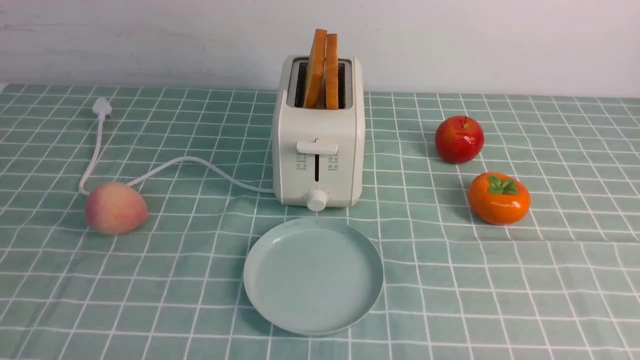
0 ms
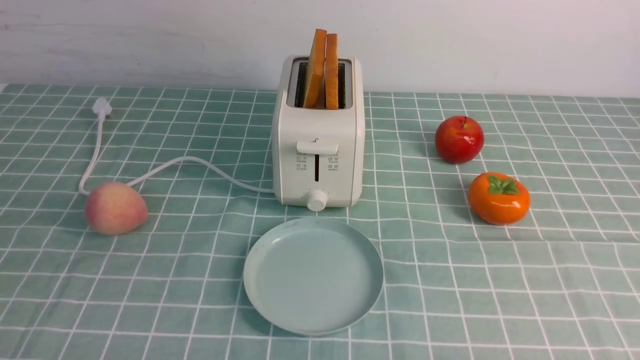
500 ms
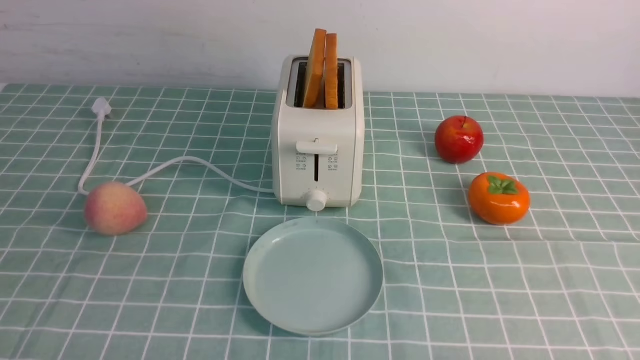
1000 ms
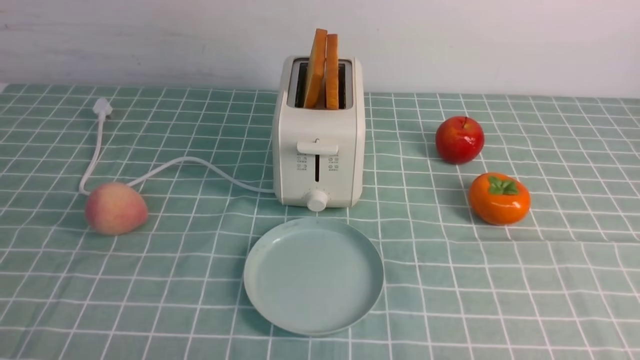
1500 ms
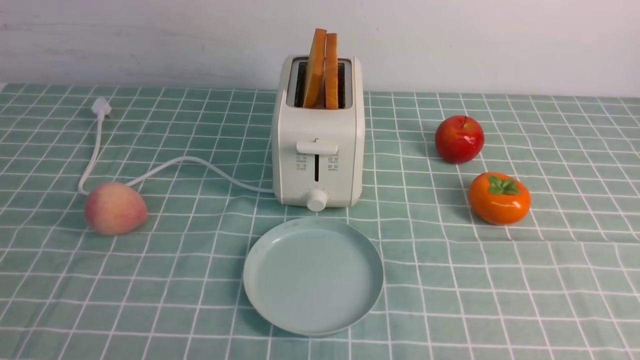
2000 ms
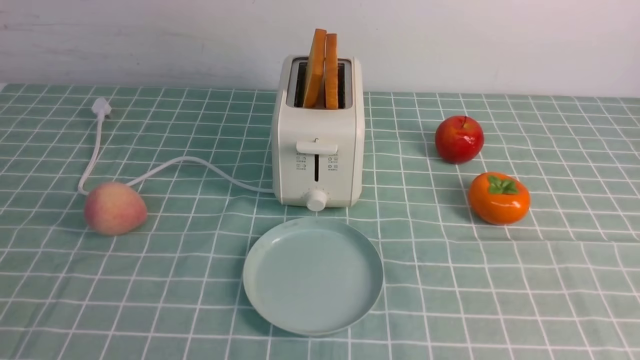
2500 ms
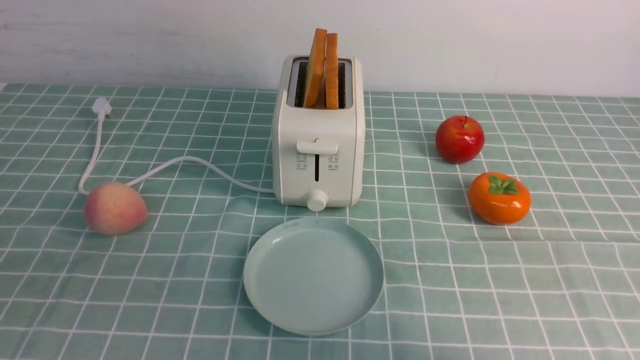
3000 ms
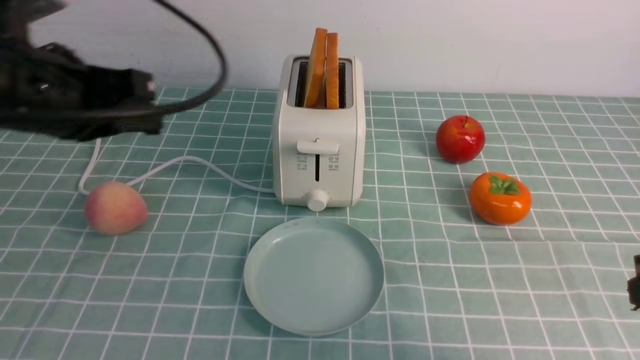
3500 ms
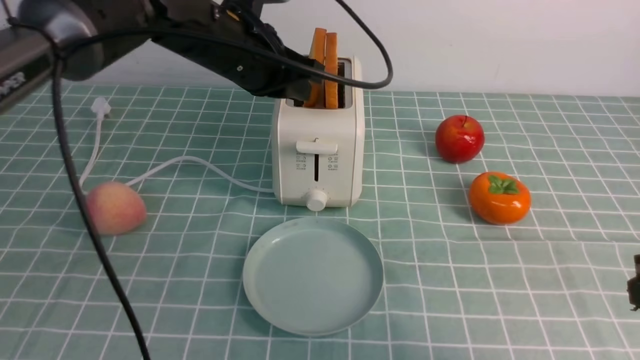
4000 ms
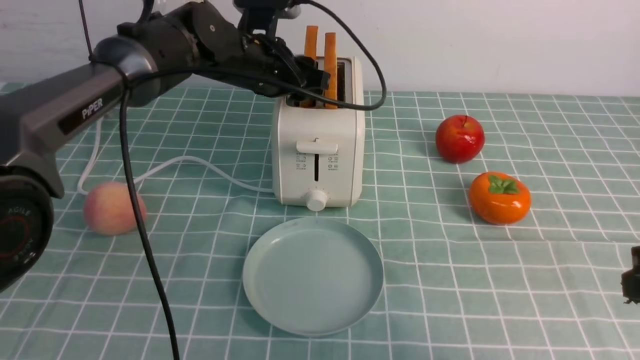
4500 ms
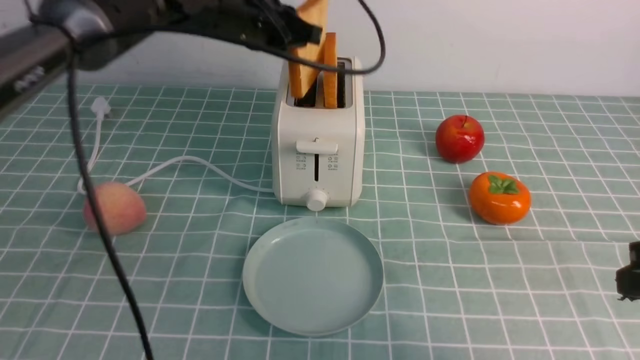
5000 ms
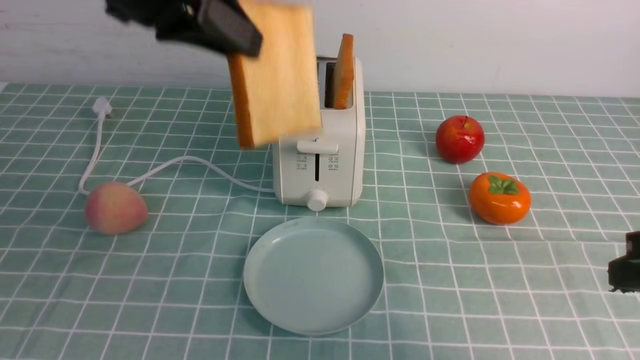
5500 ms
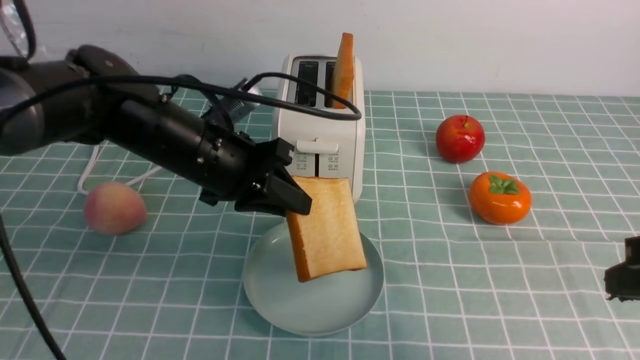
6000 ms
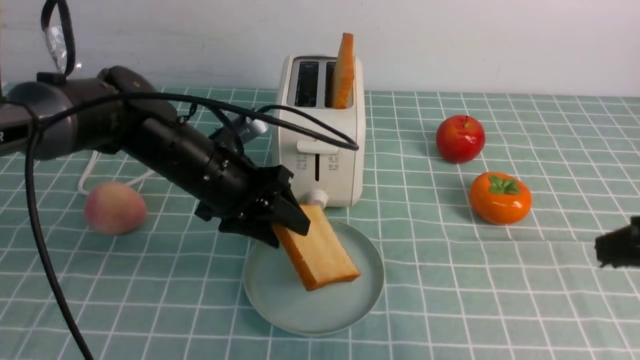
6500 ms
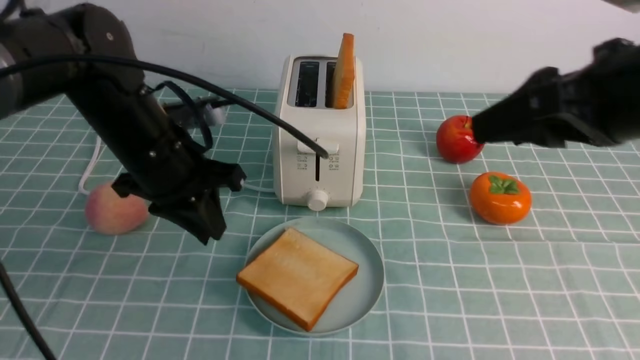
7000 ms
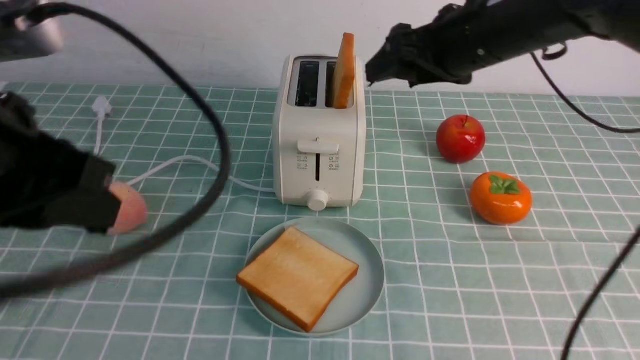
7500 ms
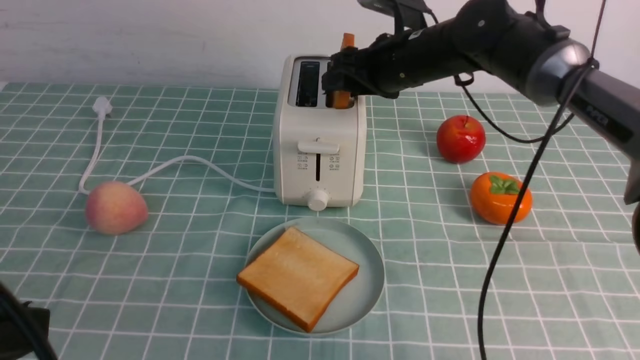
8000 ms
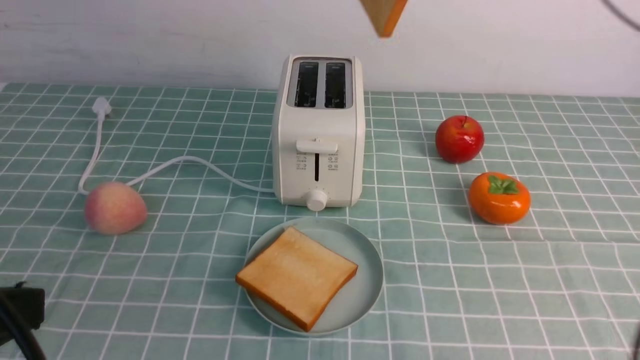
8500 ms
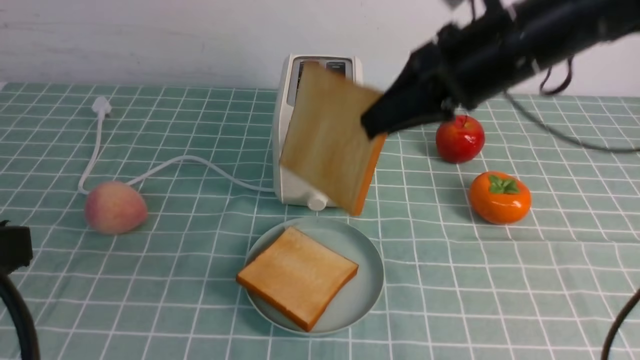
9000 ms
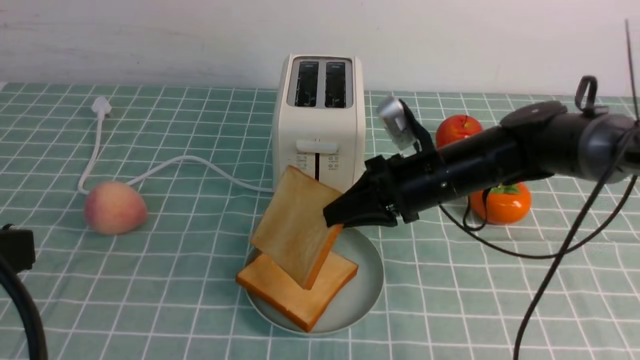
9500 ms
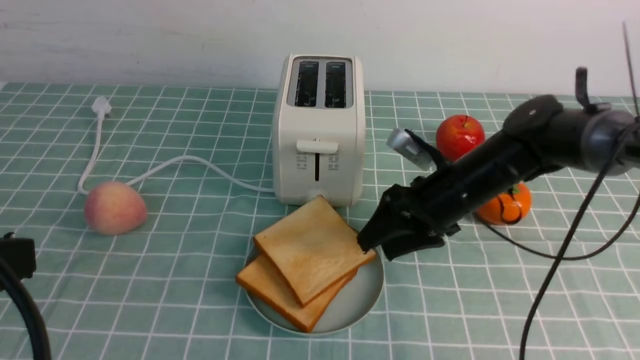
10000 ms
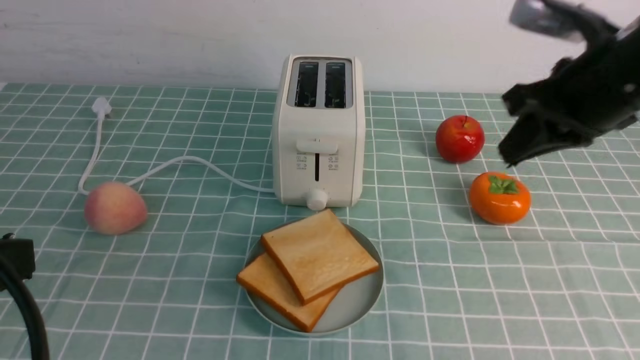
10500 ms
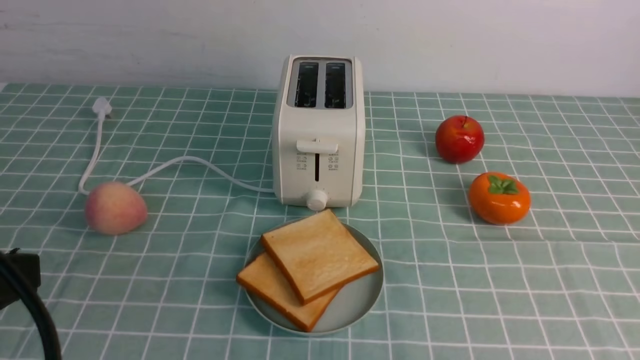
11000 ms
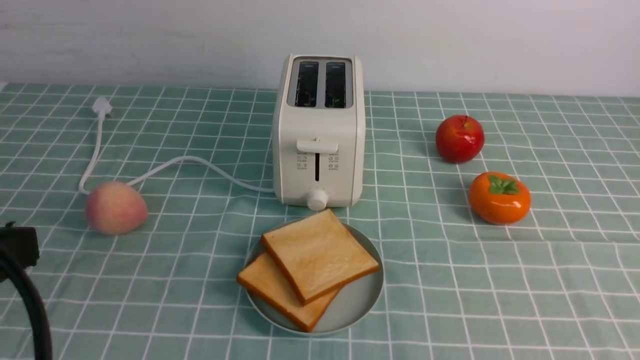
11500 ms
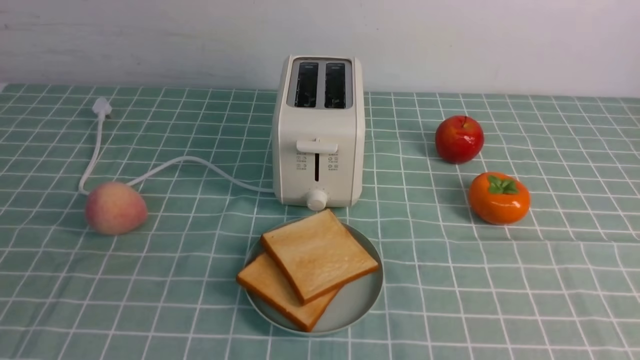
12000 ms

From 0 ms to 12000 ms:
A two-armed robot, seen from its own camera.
Task of the whole recording: take toasted bread from bread machine on blue coffee table place on plate.
Step, from 0 ms to 5000 ms: use the left arm to take out a slice of bread.
Step, from 5500 ms to 6500 ms: use the left arm to put a slice of bread into the empty plate.
Step, from 7000 ms to 8500 ms: use the right arm to take out a slice of bread.
Step, from 9000 ms to 10500 ms: use the right arm to put a slice of bread into the plate.
From 2000 ms to 4000 ms: The left gripper is displaced forward and to the right by about 40 cm. The right gripper heads forward and upward, covering approximately 15 cm, and closes.
From 4000 ms to 6000 ms: The left gripper goes up and down, about 15 cm each way, reversing 2 times, and opens, then closes once more.
From 6000 ms to 8000 ms: The right gripper moves forward and to the left, approximately 35 cm, and opens up. Meanwhile the left gripper heads backward, covering about 30 cm, and opens, then closes again.
From 8000 ms to 10000 ms: The right gripper travels downward and backward by about 15 cm, and closes, then opens again.
From 10000 ms to 12000 ms: The right gripper moves backward and to the right, roughly 40 cm, and closes its fingers.

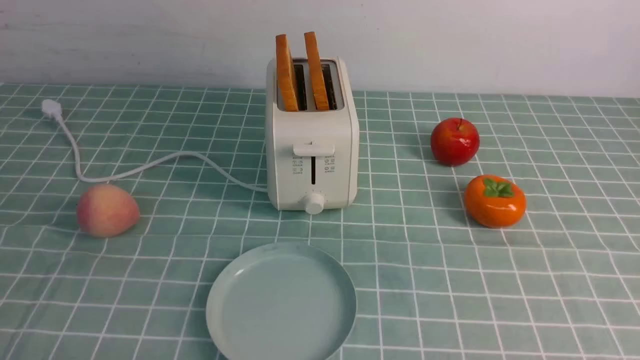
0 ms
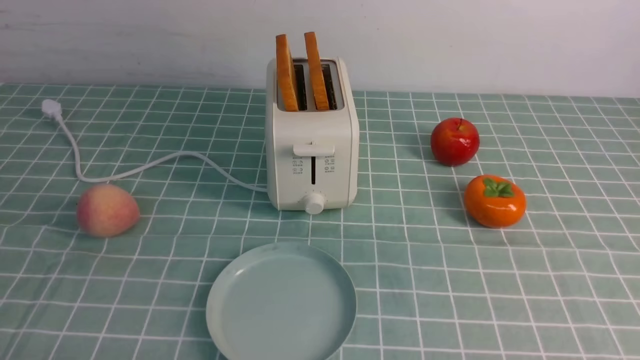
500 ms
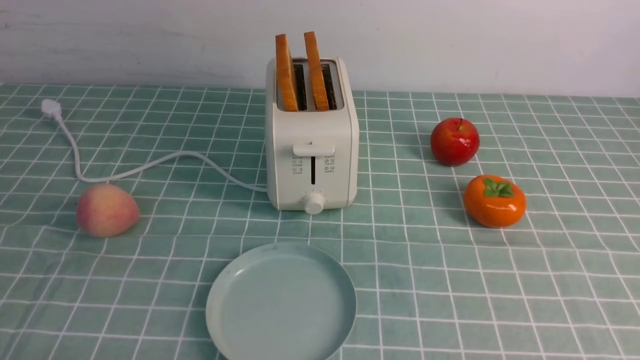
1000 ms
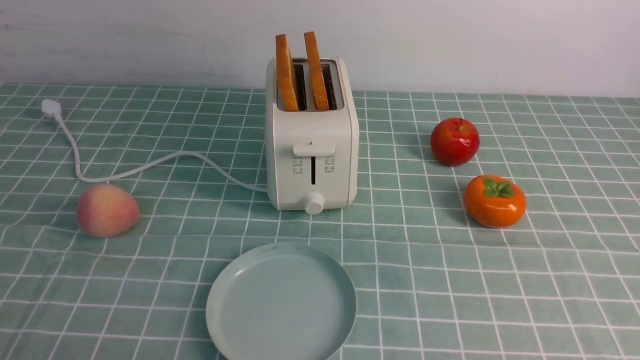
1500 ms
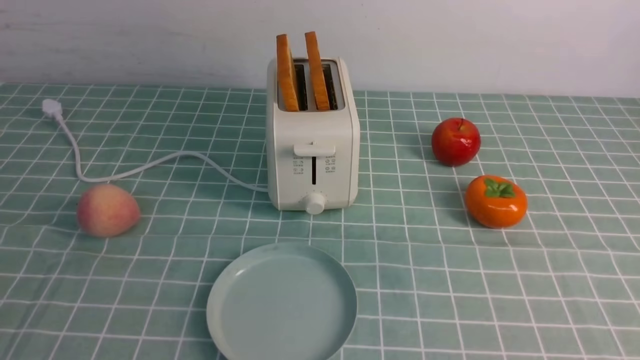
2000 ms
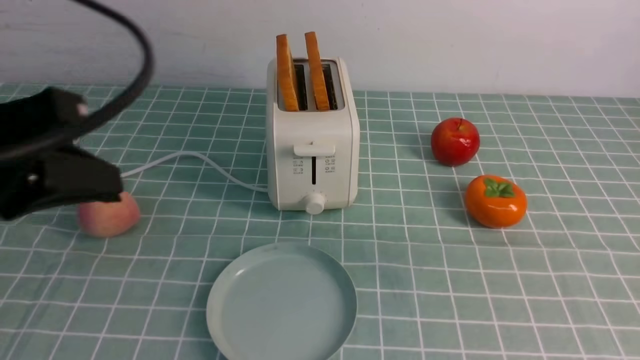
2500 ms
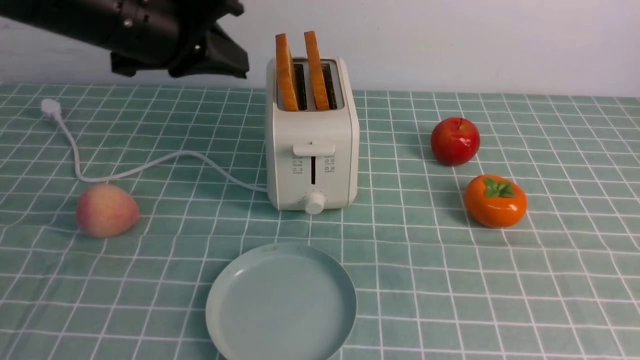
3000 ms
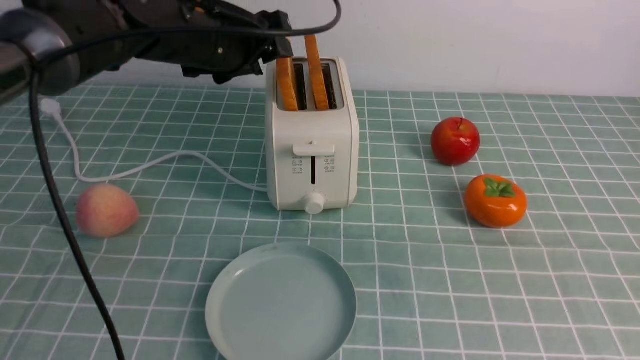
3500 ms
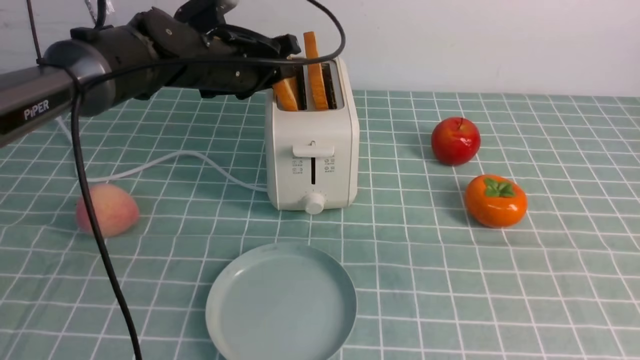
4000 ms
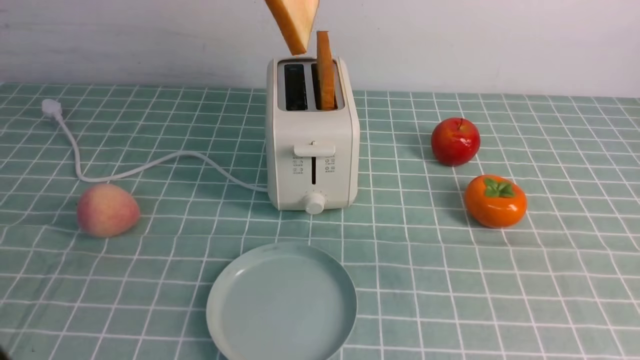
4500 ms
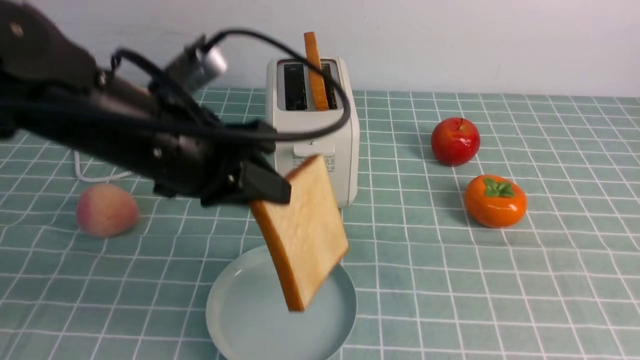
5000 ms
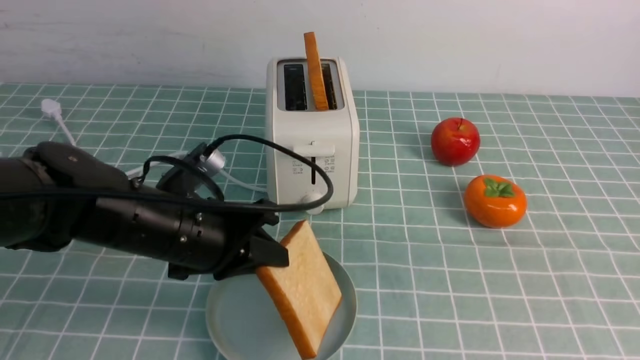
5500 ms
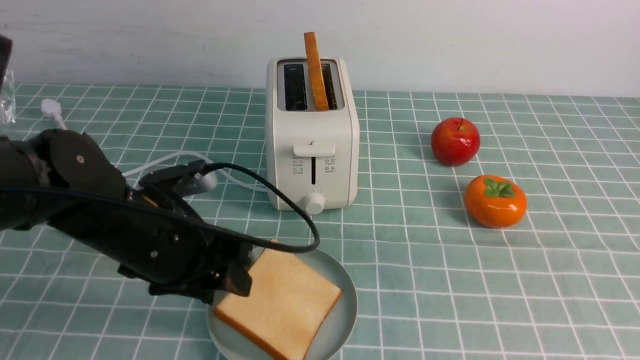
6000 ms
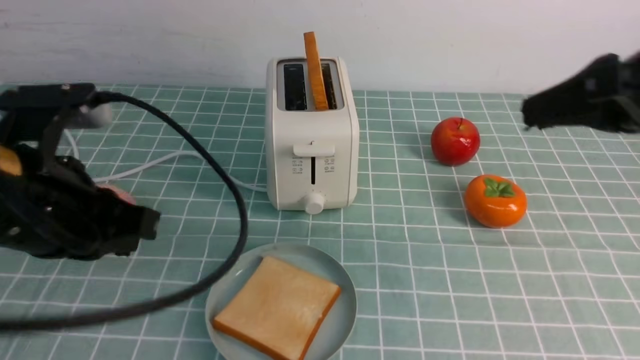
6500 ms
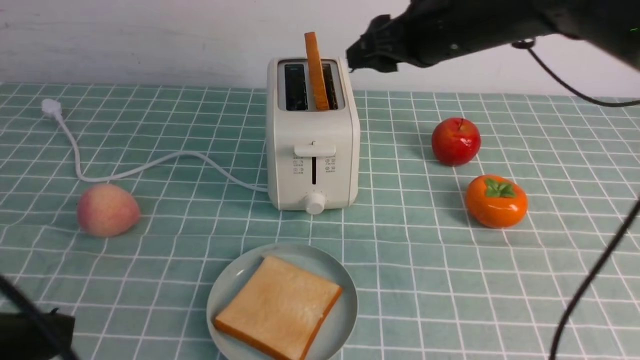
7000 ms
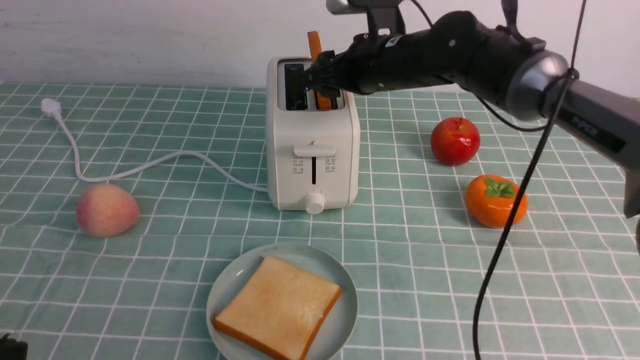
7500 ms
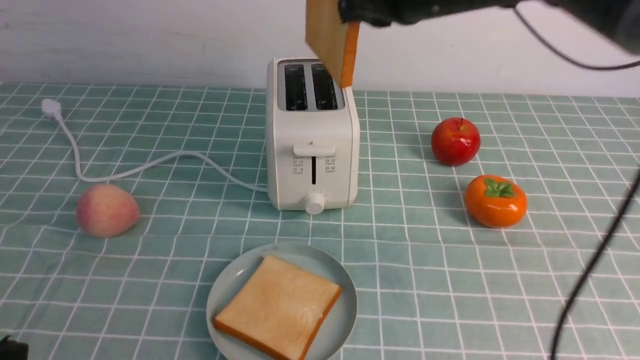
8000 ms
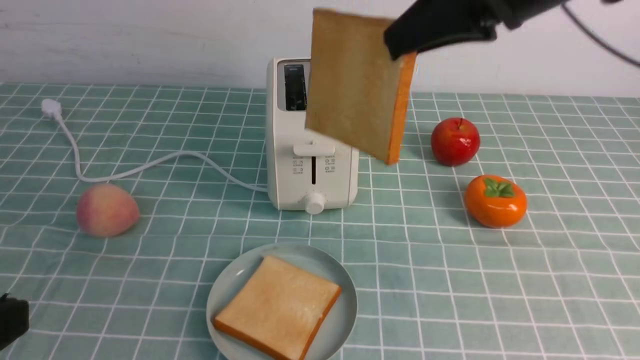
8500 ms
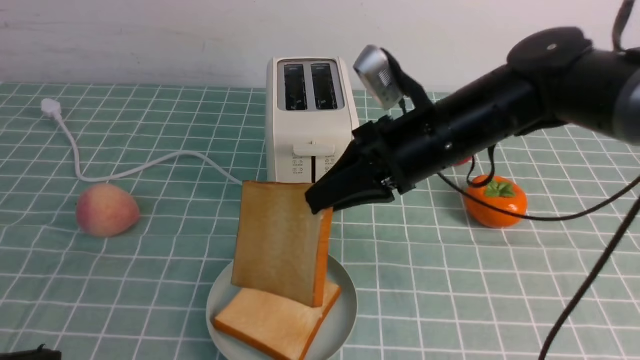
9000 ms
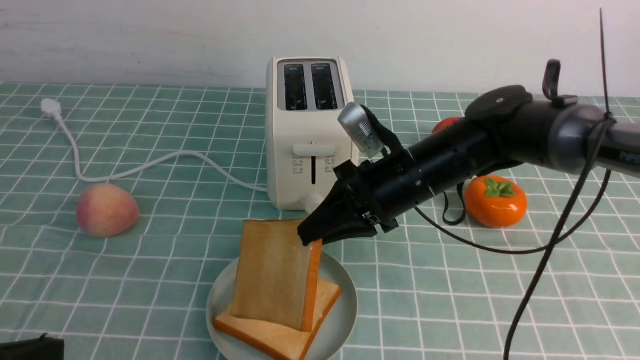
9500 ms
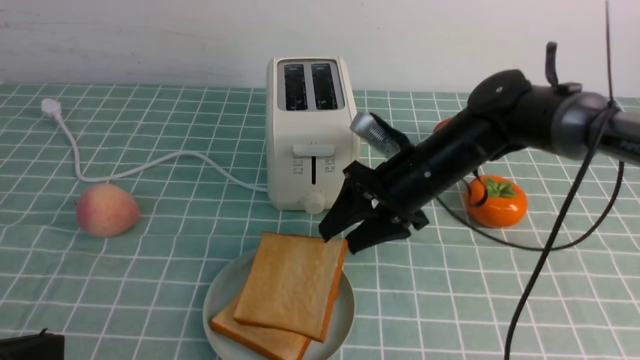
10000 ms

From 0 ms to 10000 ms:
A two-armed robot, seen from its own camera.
Task of the whole recording: take toasted bread from bread machine on blue coffee table place on plate.
Step, from 0 ms to 4000 ms: use the left arm to take out a slice of bread.
Step, from 5000 ms to 6500 ms: use the left arm to put a slice of bread into the empty plate.
Step, from 7000 ms to 8000 ms: use the right arm to take out a slice of bread.
From 2000 ms to 4000 ms: The right gripper travels upward by roughly 15 cm. The left gripper goes roughly 40 cm forward, and opens its fingers.
From 4000 ms to 6000 ms: The left gripper goes approximately 20 cm backward, moves about 15 cm upward and comes back, and closes and opens again.
From 6000 ms to 8000 ms: The left gripper moves backward and upward, roughly 25 cm, and closes up; the right gripper shifts some 35 cm forward and to the left, and opens, then closes once more.
From 8000 ms to 10000 ms: The right gripper goes approximately 15 cm downward, and opens its fingers.
